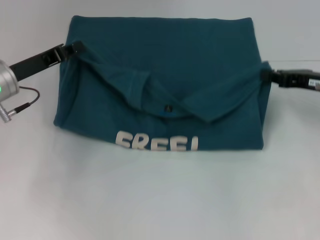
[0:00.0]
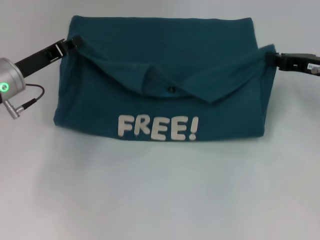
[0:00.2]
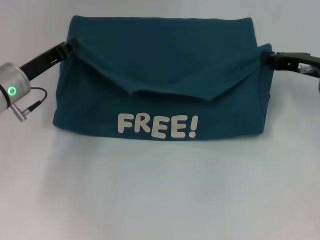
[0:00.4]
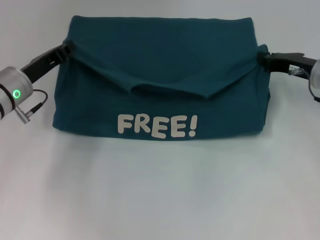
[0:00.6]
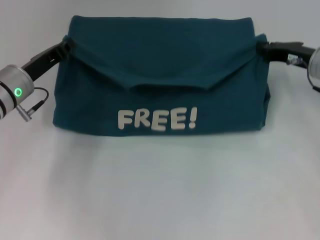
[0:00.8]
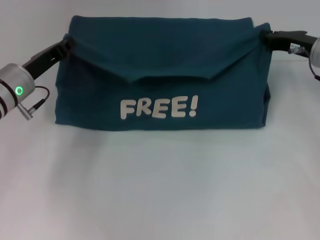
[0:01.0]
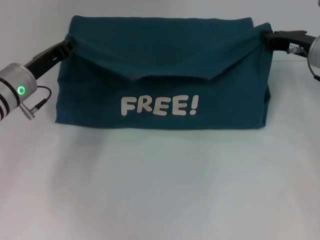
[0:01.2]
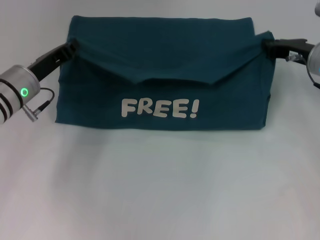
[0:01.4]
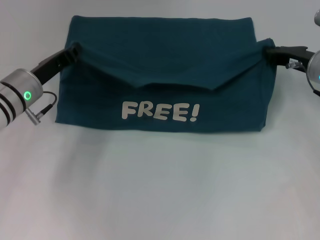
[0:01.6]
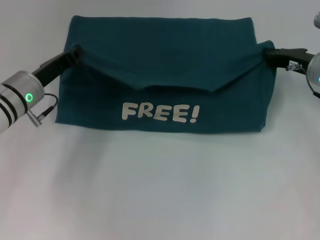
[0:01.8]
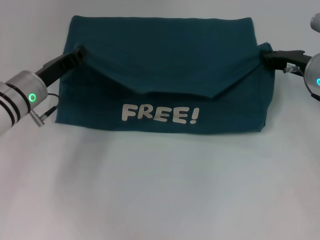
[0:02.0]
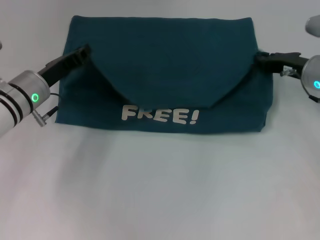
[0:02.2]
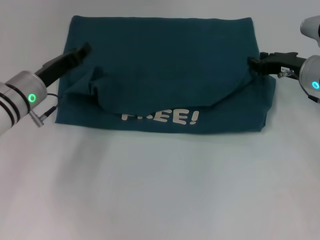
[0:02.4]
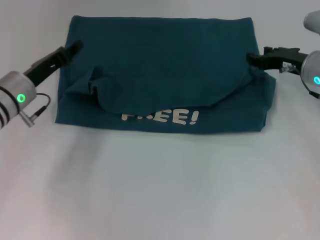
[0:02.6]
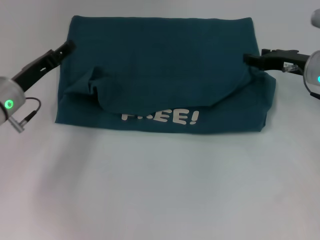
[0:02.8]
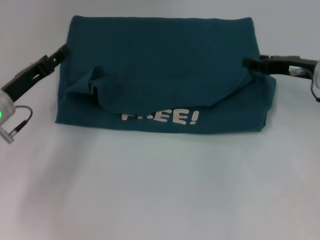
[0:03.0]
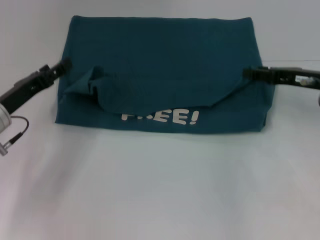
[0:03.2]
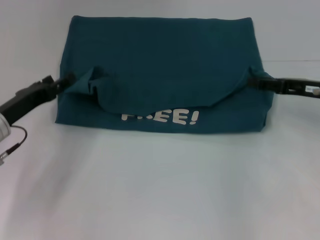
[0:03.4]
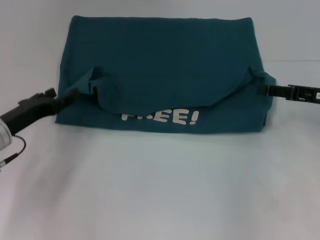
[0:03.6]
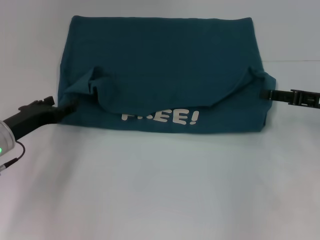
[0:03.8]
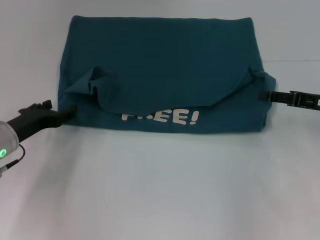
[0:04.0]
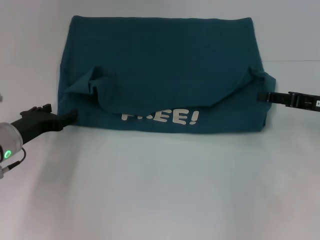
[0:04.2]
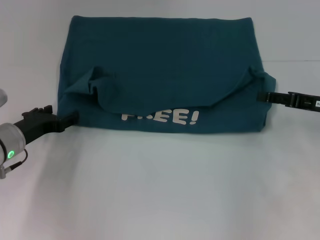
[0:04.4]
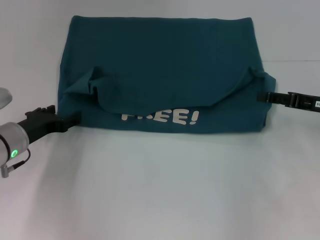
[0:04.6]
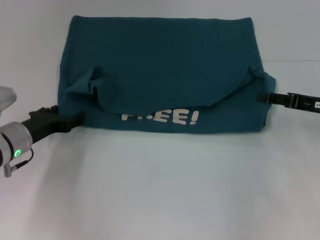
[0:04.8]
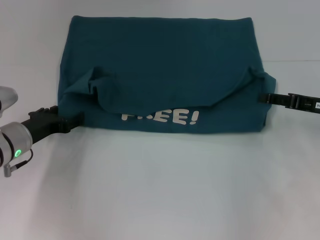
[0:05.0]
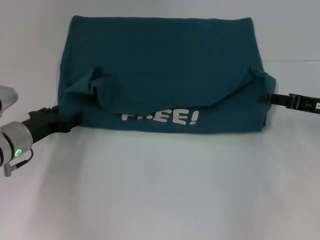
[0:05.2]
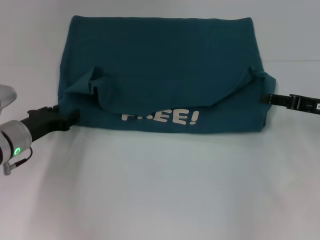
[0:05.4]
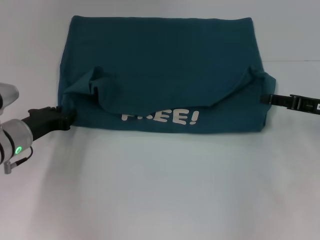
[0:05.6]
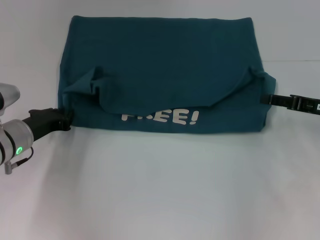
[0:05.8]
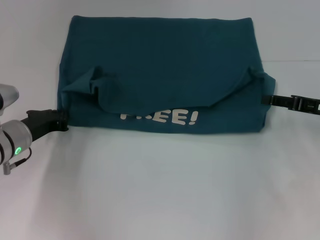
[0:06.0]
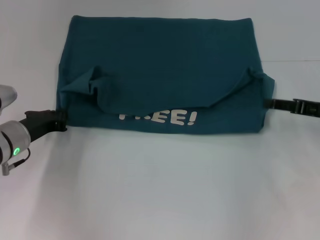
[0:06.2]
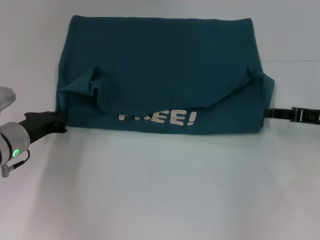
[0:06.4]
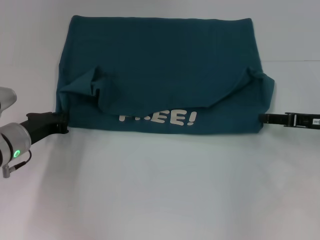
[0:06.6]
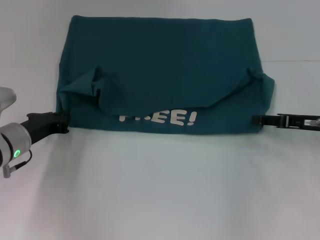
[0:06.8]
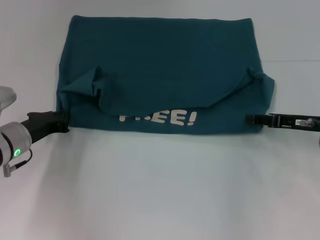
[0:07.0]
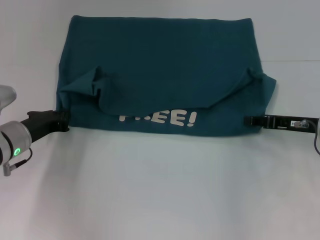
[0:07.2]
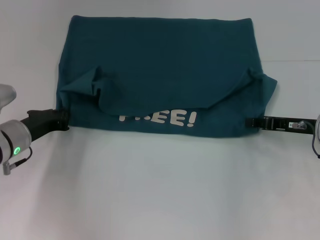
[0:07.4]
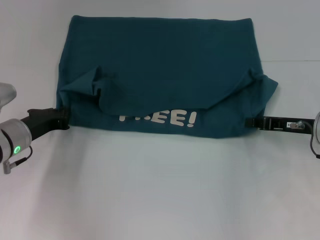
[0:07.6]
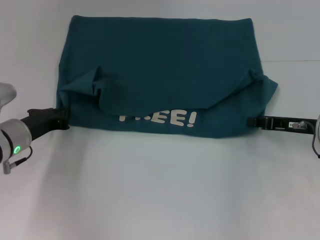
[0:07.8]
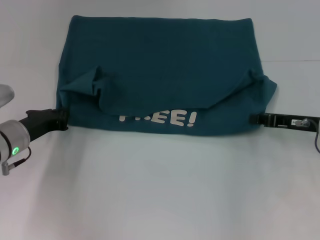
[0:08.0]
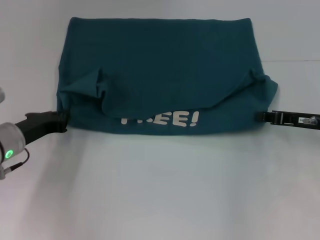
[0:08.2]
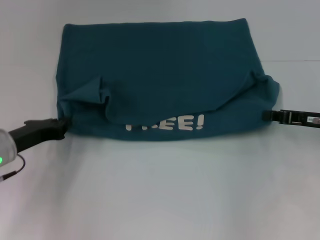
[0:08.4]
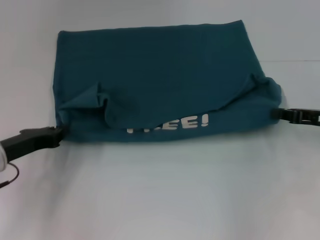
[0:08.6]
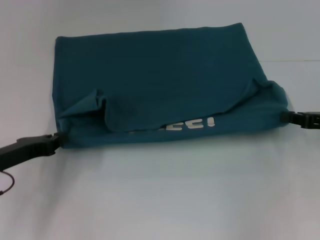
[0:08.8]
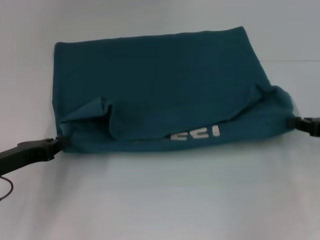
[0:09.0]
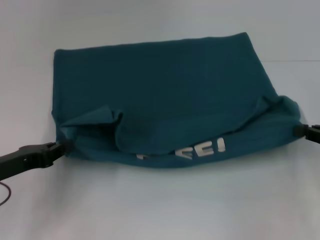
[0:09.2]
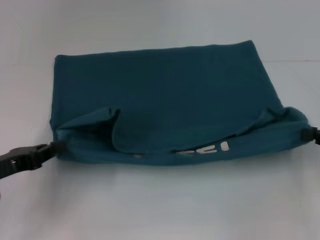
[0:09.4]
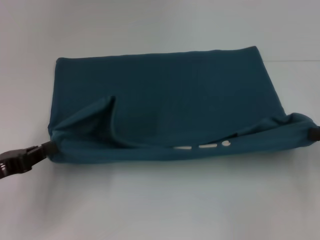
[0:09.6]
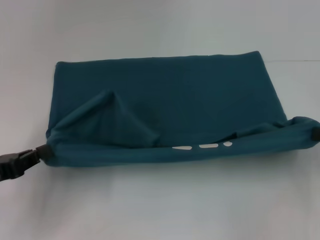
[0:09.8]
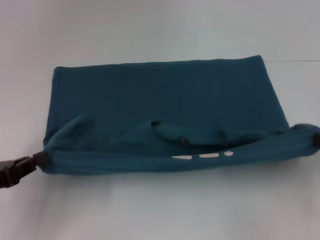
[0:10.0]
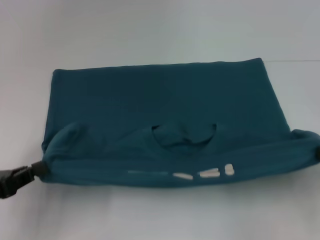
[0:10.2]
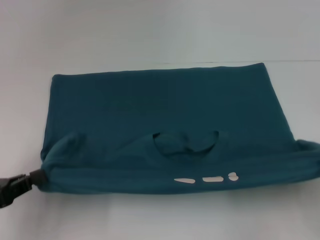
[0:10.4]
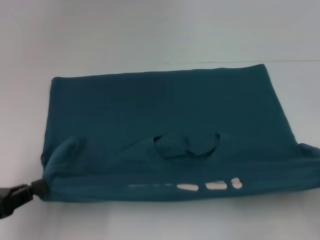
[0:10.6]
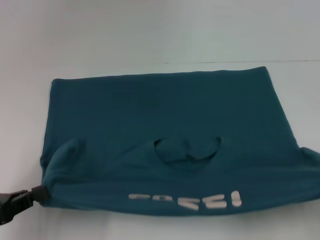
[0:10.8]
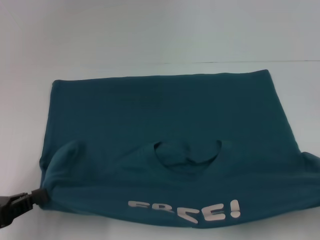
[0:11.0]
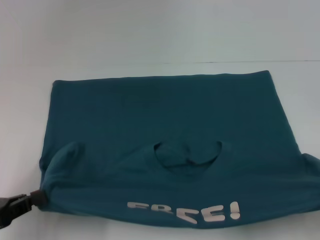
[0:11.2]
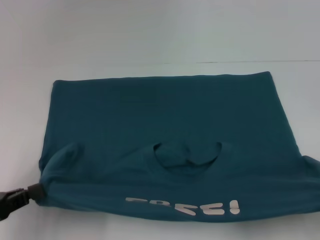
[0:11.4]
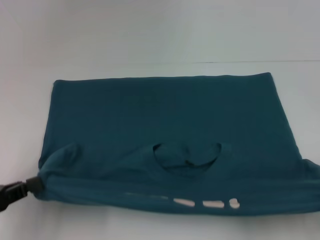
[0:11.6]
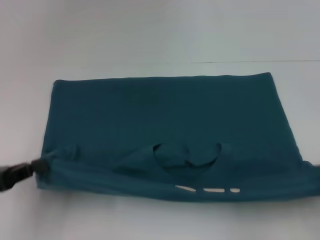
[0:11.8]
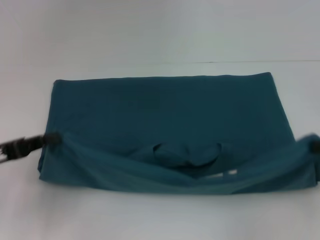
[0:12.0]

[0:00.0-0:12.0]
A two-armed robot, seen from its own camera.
Step, 0:00.0 to 0:02.6: Fold the clothes to the left.
Step, 0:00.0 to 0:02.6: Fold the clothes to the right.
Step, 0:02.8 to 0:11.2: Pull the clothes with your left hand.
Step, 0:02.8 to 0:11.2: Pull the clothes with your right hand.
0:00.0 to 0:01.6: The right gripper heads forward, covering roughly 5 cm.
0:01.6 to 0:03.0: The right gripper opens up. The left gripper shifts by about 5 cm, and opens its fingers.
0:03.0 to 0:04.4: The right gripper heads backward, covering roughly 5 cm.
0:04.4 to 0:06.0: The left gripper closes.
0:06.0 to 0:07.6: The right gripper shifts by approximately 5 cm, and closes its fingers.
0:07.6 to 0:09.0: The left gripper shifts roughly 10 cm backward, while the right gripper travels to the right by about 5 cm.
0:09.0 to 0:10.4: Both grippers move backward, some 10 cm.
0:10.4 to 0:12.0: The left gripper is displaced forward by about 5 cm.

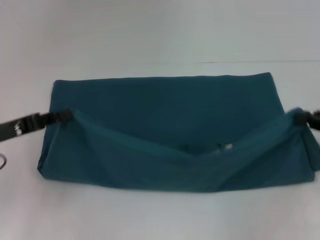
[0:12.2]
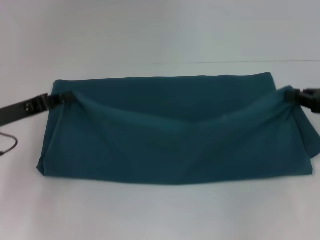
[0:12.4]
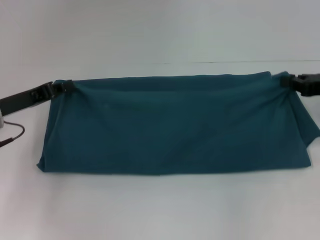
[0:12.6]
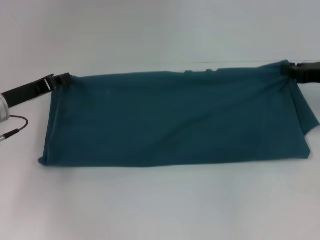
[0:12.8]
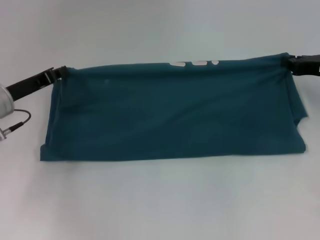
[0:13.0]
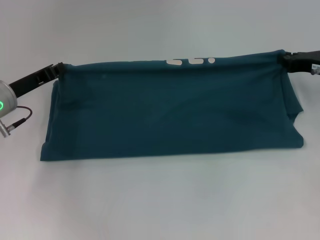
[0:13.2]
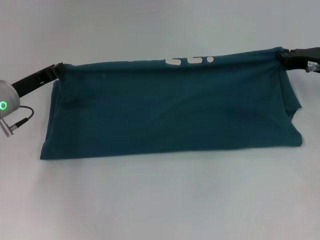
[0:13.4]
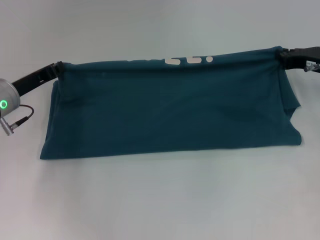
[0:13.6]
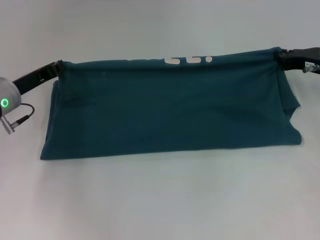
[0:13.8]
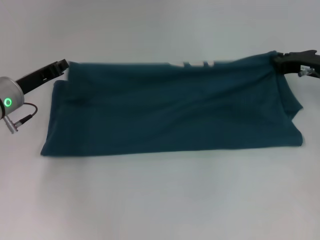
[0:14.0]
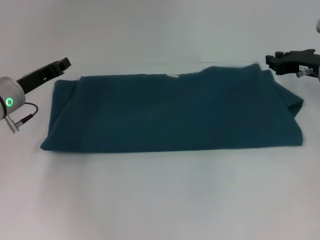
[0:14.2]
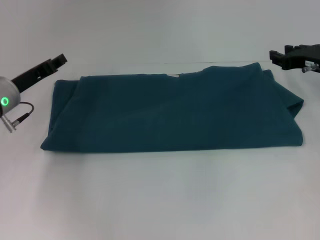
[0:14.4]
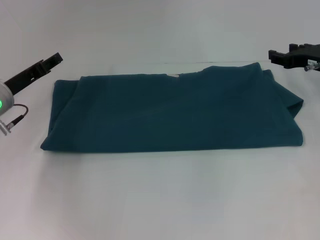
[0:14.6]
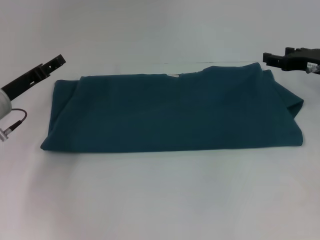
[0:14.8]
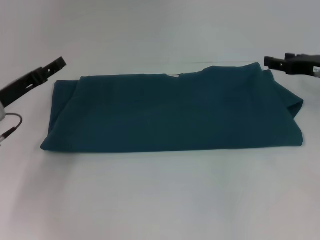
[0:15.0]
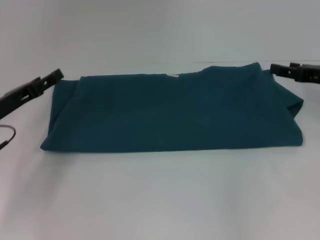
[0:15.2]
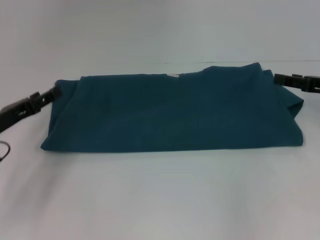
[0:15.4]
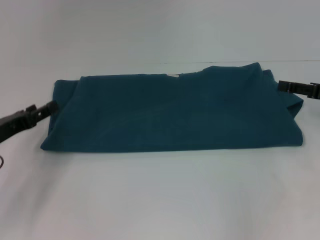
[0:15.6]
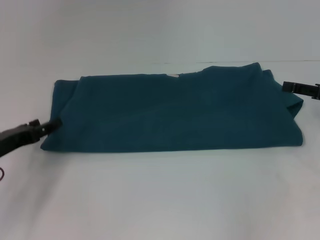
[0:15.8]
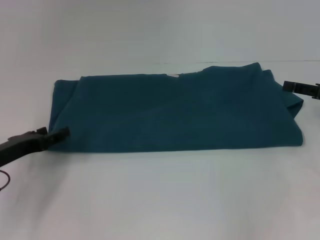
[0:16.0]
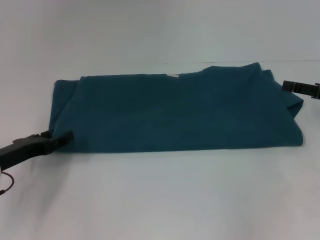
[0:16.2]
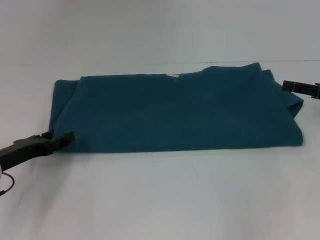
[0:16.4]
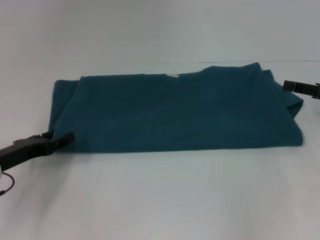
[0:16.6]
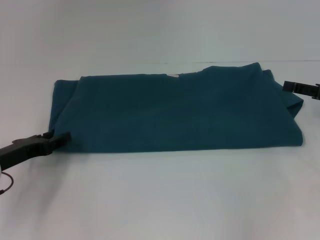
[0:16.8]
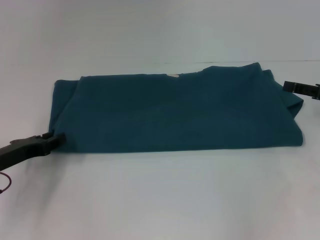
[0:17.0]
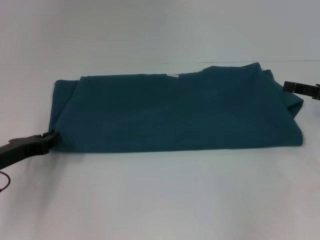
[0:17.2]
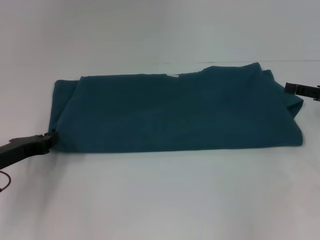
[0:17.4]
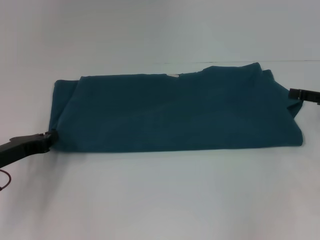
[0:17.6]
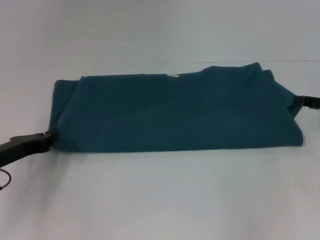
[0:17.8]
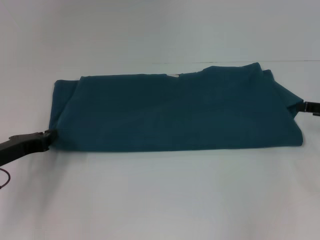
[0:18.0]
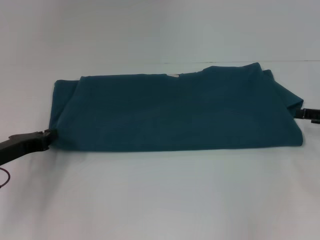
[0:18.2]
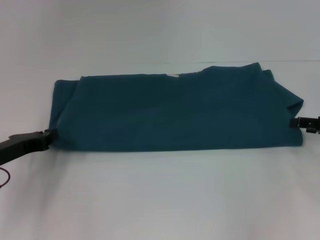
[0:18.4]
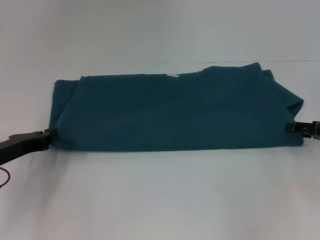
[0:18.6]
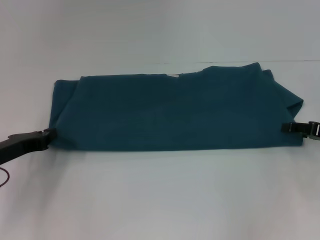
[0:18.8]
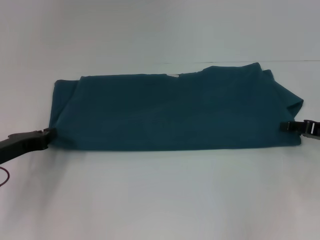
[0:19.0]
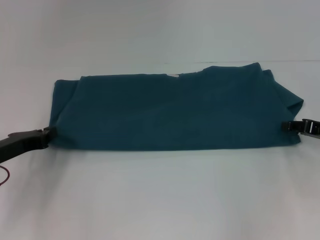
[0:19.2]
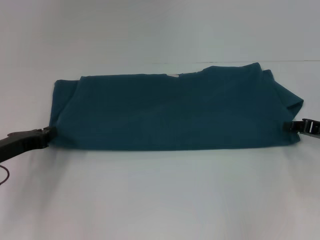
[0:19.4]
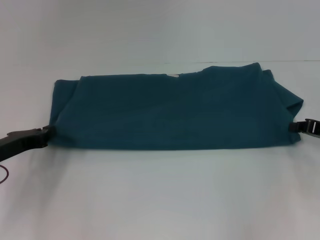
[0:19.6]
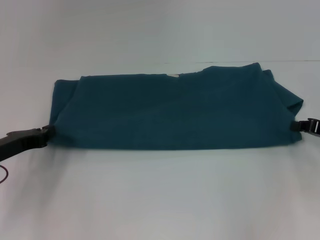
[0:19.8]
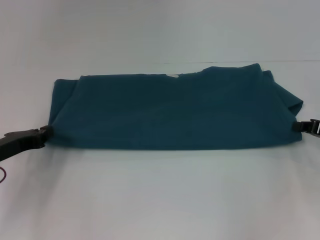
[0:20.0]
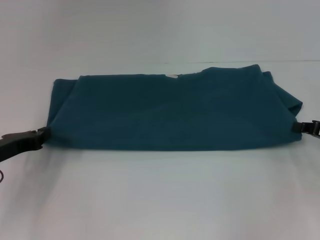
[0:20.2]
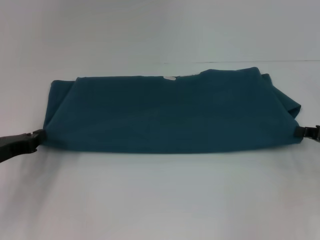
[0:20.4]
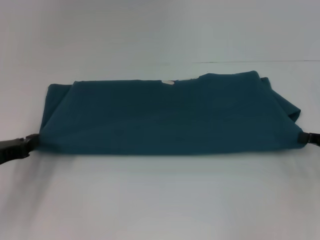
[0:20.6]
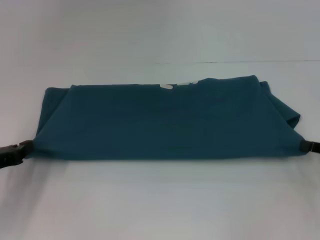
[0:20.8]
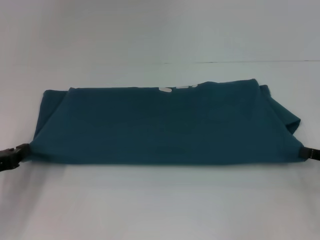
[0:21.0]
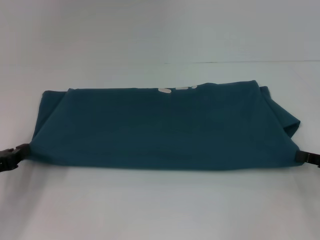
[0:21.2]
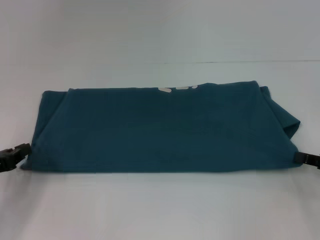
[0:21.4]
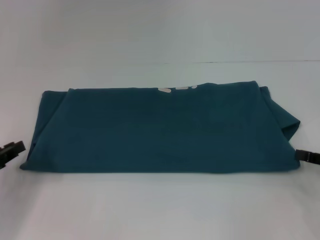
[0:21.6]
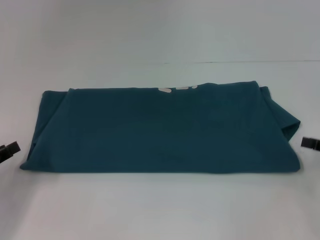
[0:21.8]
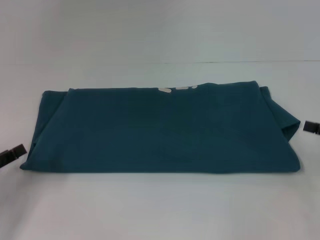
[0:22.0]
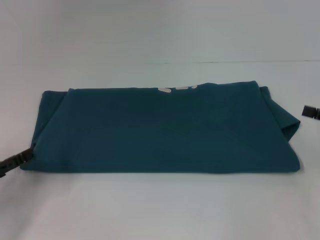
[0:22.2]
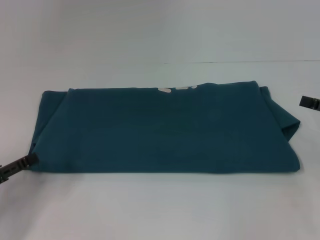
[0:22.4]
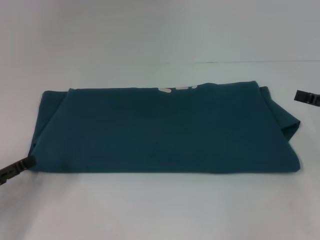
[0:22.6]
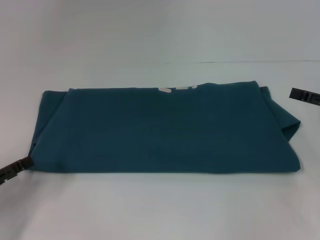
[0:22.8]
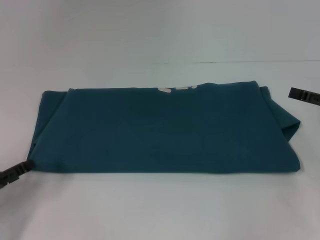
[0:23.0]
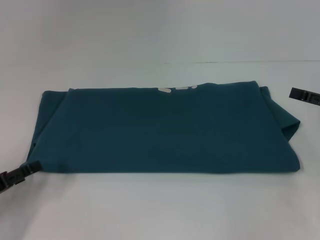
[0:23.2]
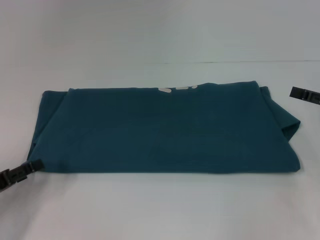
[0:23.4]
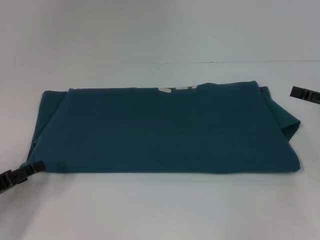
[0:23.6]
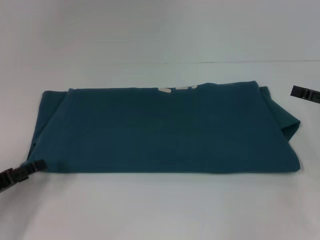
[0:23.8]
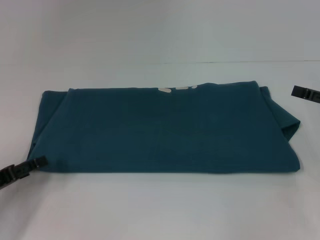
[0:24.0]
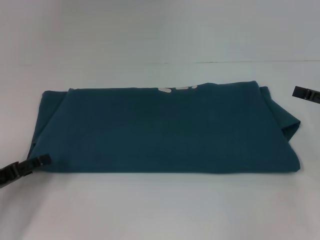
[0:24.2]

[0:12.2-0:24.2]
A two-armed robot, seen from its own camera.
Step, 0:12.2 to 0:14.2: Fold the clothes to the right.
0:12.2 to 0:13.8: The left gripper travels forward by about 10 cm, while the right gripper heads forward and to the left, covering roughly 15 cm.
0:13.8 to 0:15.2: The right gripper opens; the left gripper goes approximately 5 cm backward, and opens.
0:15.2 to 0:16.6: The left gripper shifts by roughly 5 cm.
0:16.6 to 0:18.2: The left gripper closes up.
0:18.2 to 0:19.8: The right gripper closes.
0:19.8 to 0:21.2: The two grippers go approximately 5 cm backward.
0:21.2 to 0:22.6: The right gripper is displaced upward by about 5 cm, and opens up, while the left gripper opens up.
0:22.6 to 0:24.2: The grippers move only a little.
